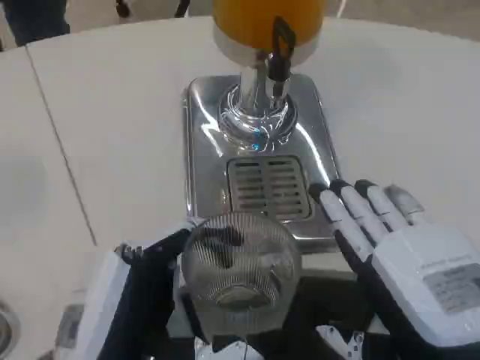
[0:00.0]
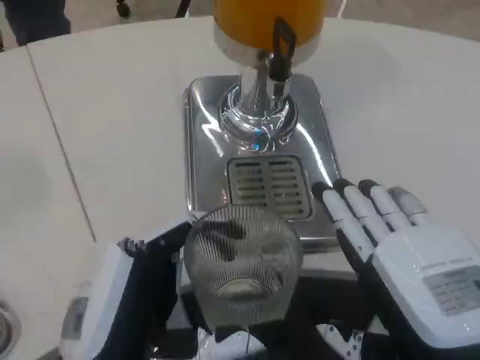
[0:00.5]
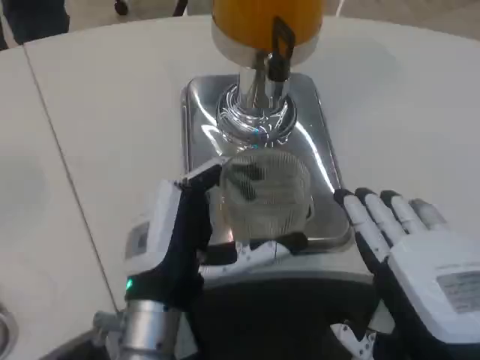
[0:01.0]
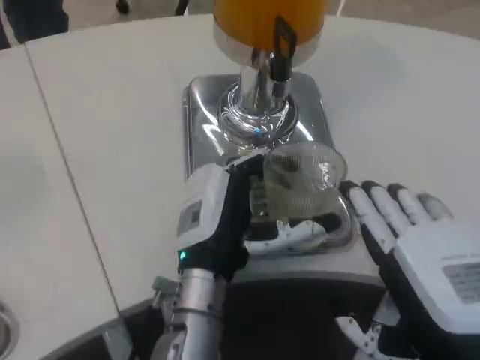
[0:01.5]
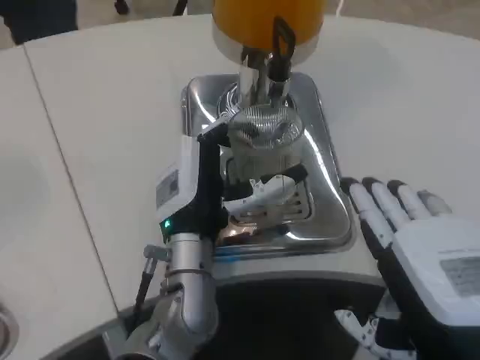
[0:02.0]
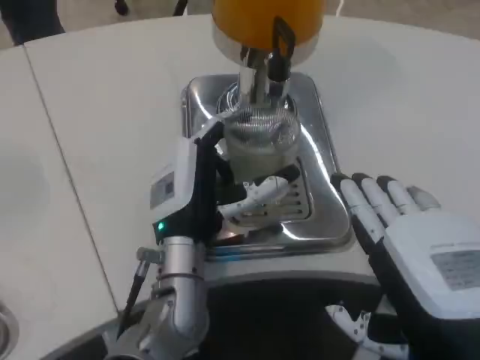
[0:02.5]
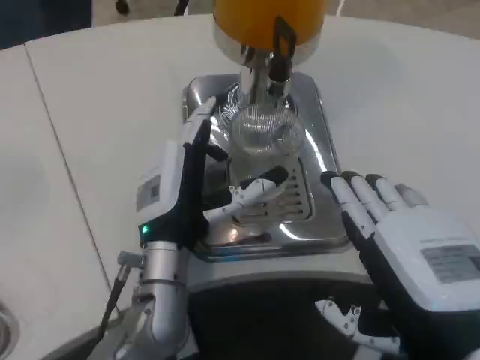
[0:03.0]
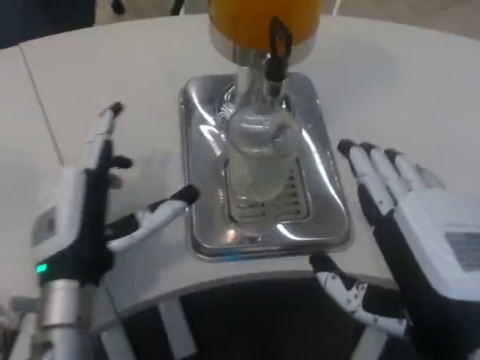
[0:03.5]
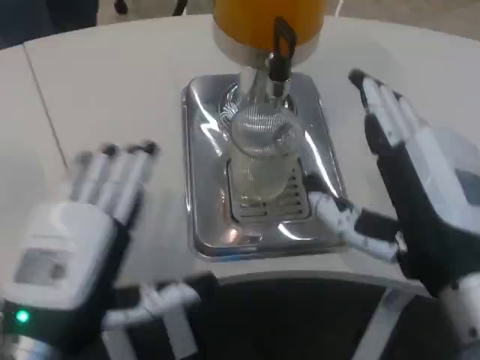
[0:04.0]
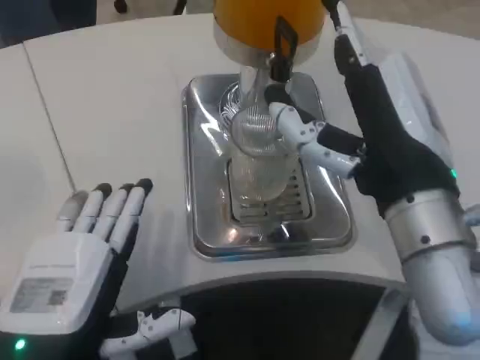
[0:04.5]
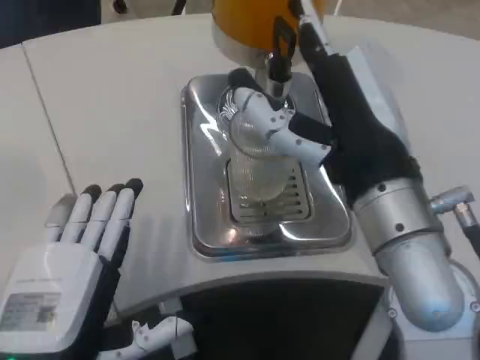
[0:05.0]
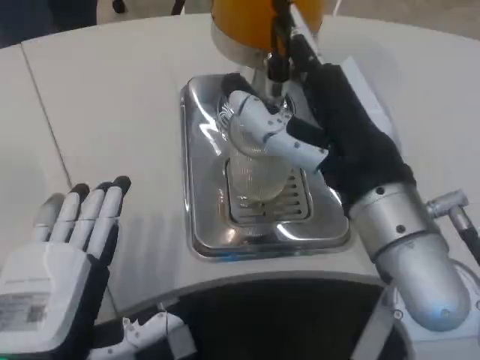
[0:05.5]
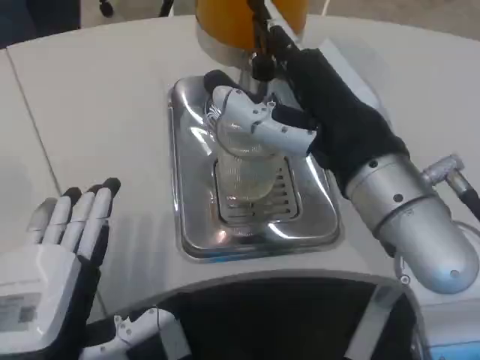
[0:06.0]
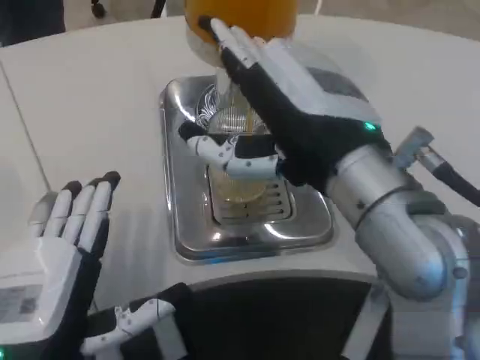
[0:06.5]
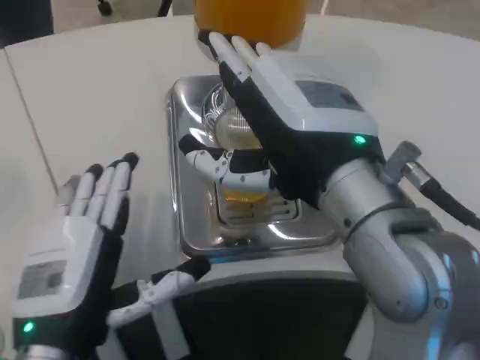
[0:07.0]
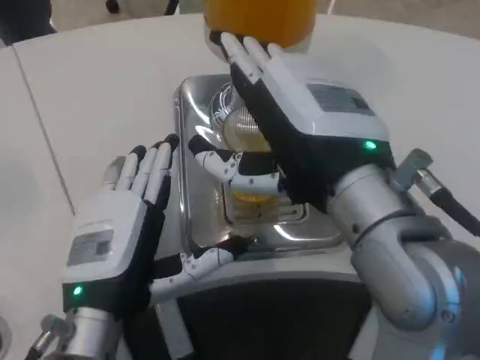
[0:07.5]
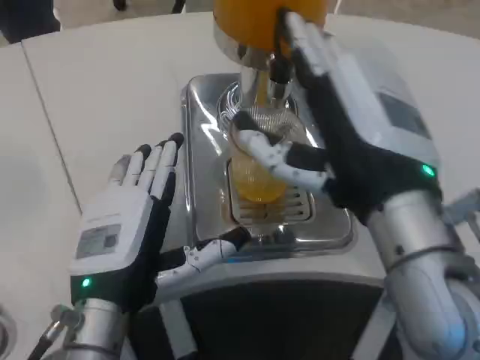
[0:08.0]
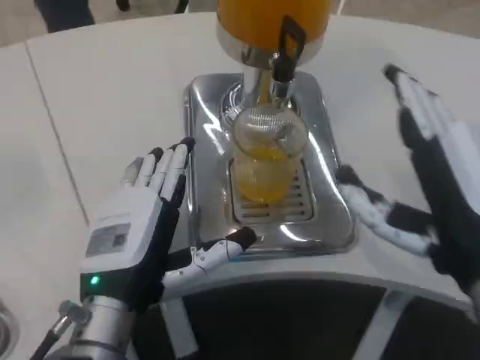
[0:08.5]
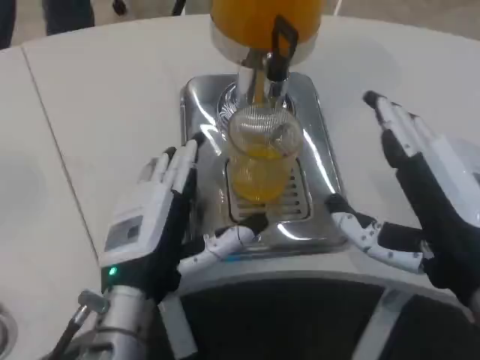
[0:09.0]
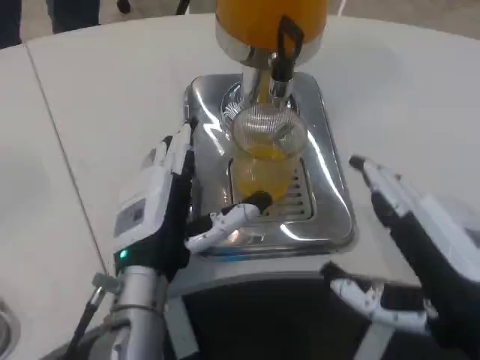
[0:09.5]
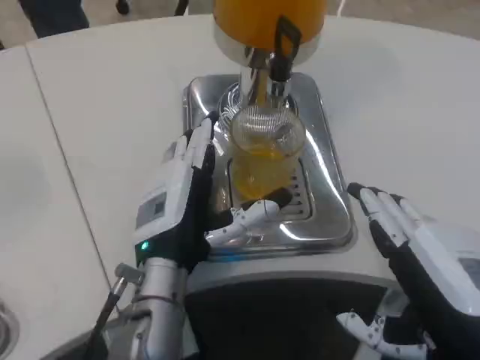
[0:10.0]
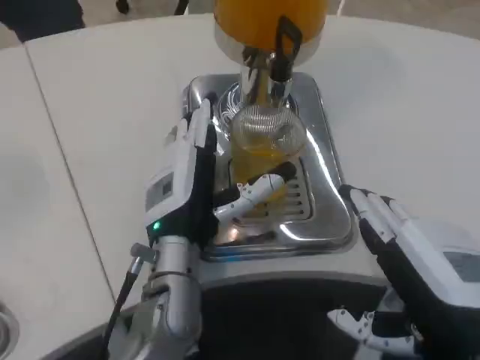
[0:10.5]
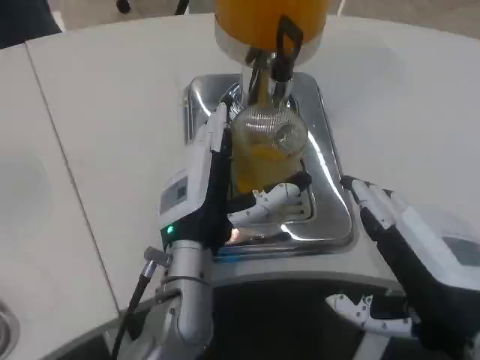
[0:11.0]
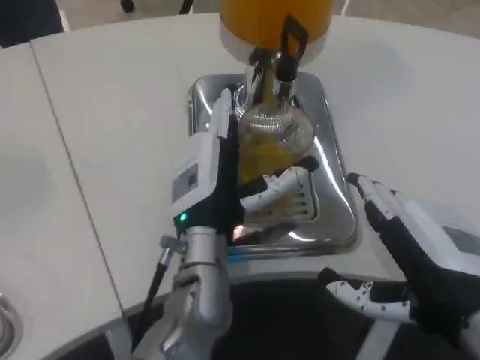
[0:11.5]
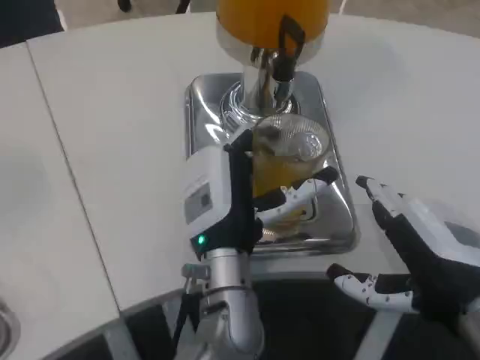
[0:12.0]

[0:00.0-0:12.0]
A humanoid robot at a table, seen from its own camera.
Task of the whole recording: Grasp the cup under the faucet to collect the drink, then remove the cup.
0:00.0 to 0:02.0: The left hand heads forward and to the right, covering approximately 20 cm.
0:02.0 to 0:04.0: The left hand is displaced backward and to the left by approximately 20 cm. The right hand is displaced forward by approximately 5 cm.
0:04.0 to 0:06.0: The right hand is displaced upward by roughly 5 cm.
0:06.0 to 0:08.0: The left hand travels forward by some 10 cm.
0:08.0 to 0:10.0: The right hand shifts about 10 cm to the right, backward and downward, while the left hand is displaced forward and to the right by roughly 5 cm.
0:10.0 to 0:12.0: The left hand moves to the right, some 10 cm.

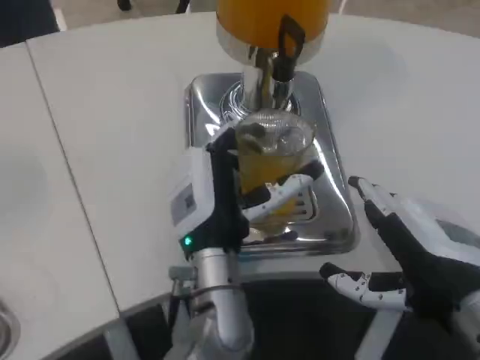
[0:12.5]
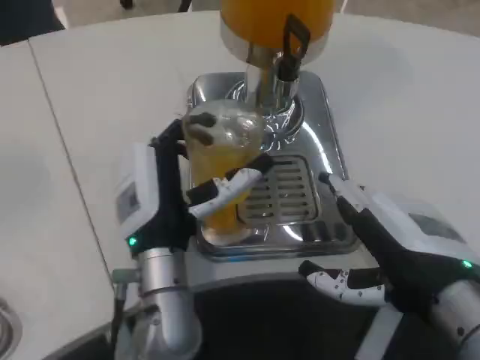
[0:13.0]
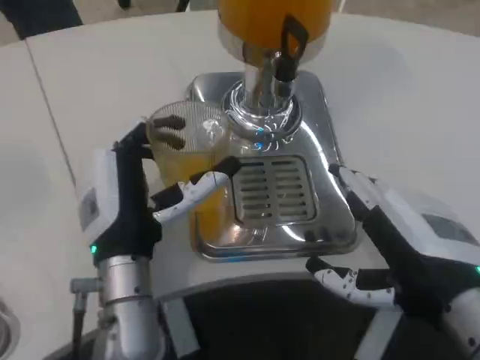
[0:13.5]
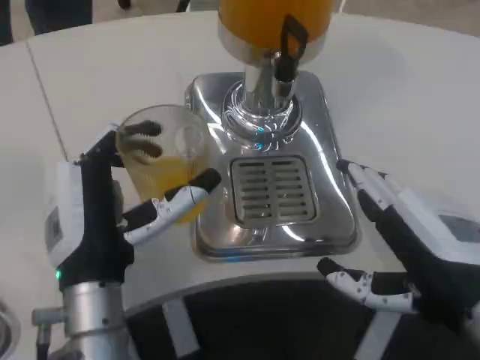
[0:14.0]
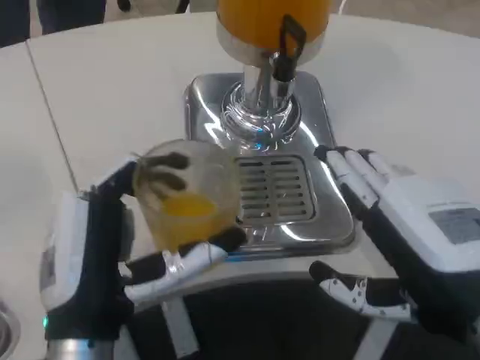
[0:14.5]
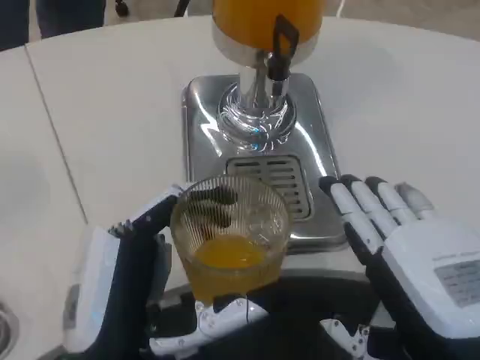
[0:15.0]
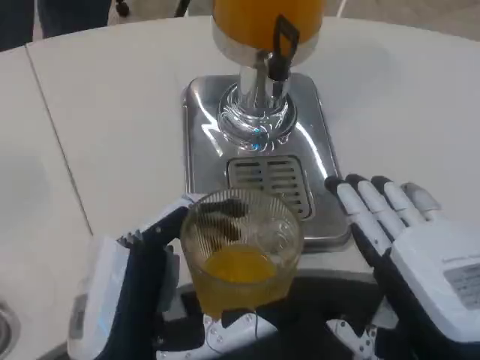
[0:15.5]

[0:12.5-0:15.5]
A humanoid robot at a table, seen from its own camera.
Task of the whole recording: Grasp the cup under the faucet to collect the drink, then remove the cup.
0:12.5 to 0:14.0: The left hand moves to the left and backward, approximately 10 cm.
0:14.0 to 0:15.5: The right hand is displaced backward by some 5 cm. Meanwhile the left hand goes some 10 cm backward.

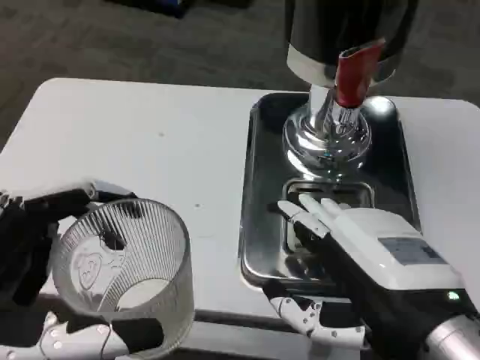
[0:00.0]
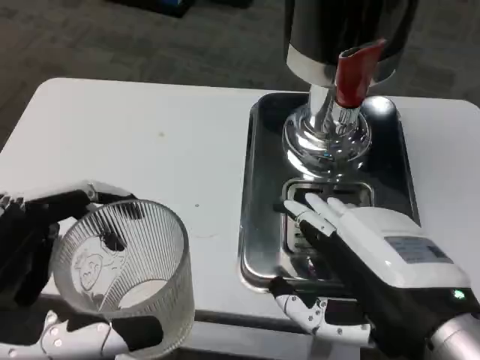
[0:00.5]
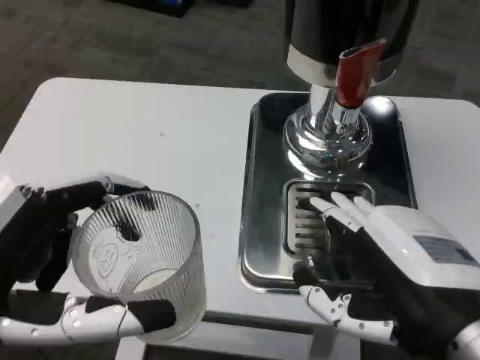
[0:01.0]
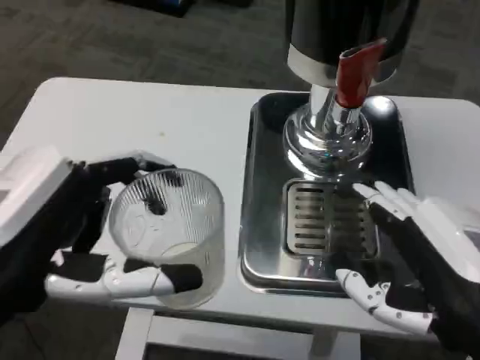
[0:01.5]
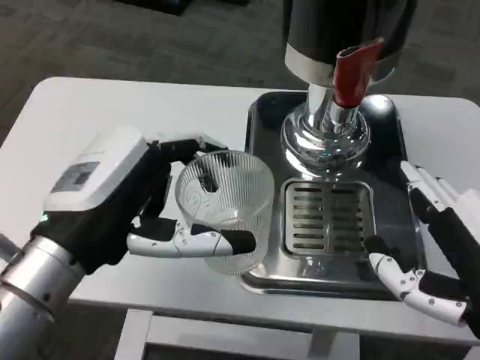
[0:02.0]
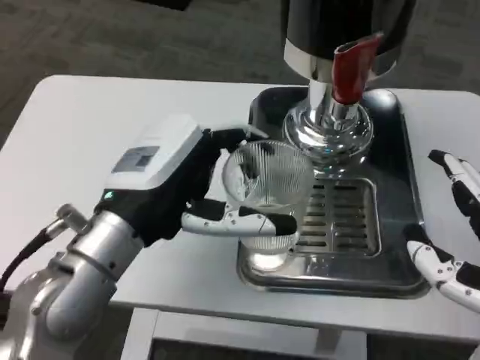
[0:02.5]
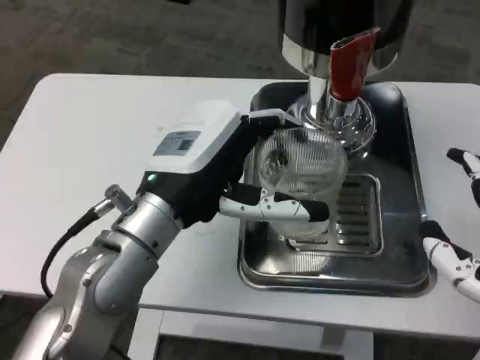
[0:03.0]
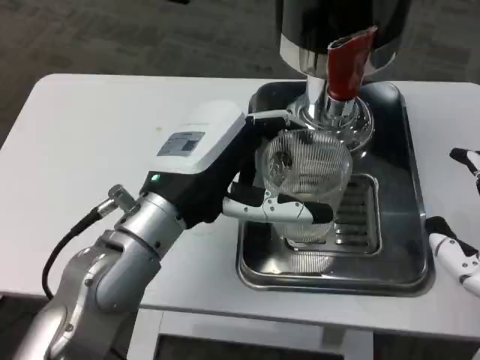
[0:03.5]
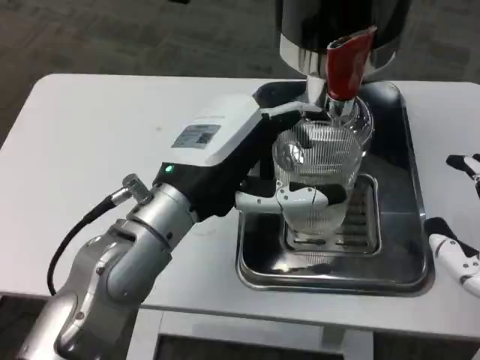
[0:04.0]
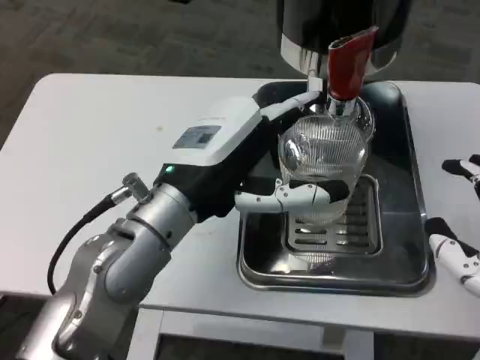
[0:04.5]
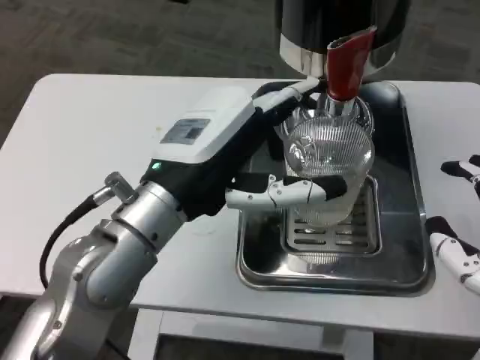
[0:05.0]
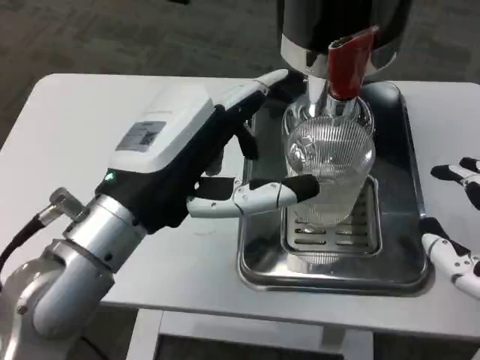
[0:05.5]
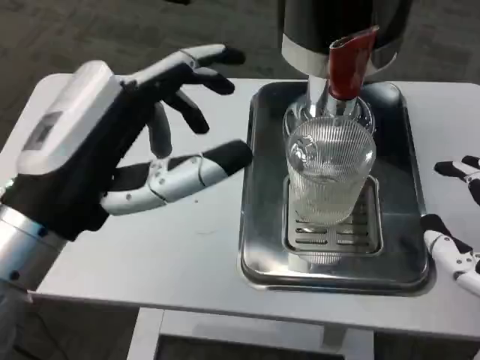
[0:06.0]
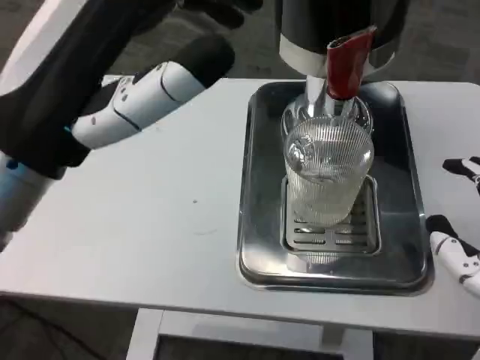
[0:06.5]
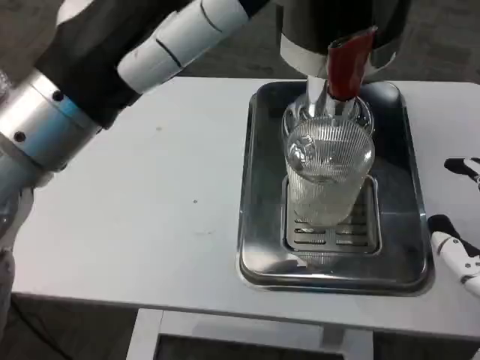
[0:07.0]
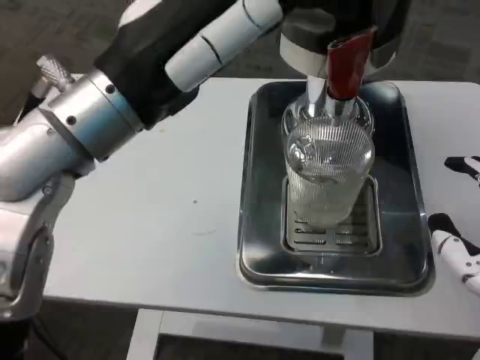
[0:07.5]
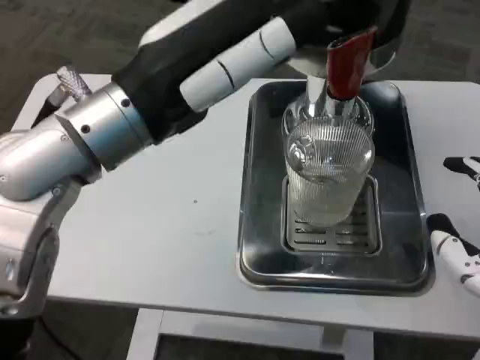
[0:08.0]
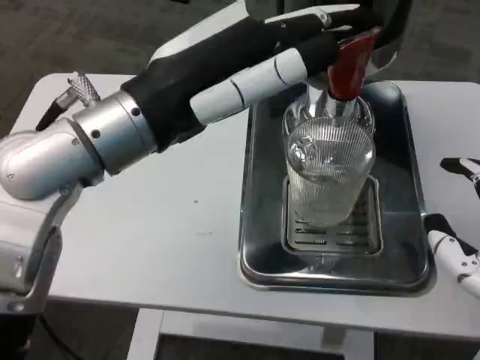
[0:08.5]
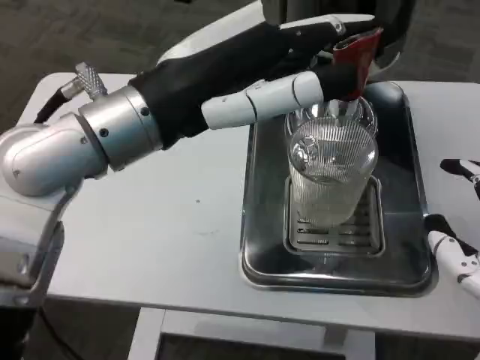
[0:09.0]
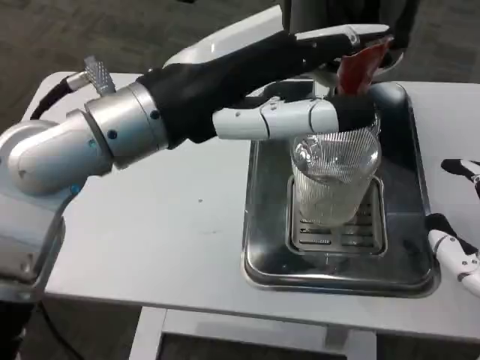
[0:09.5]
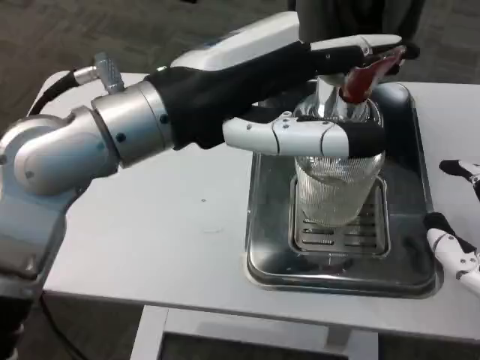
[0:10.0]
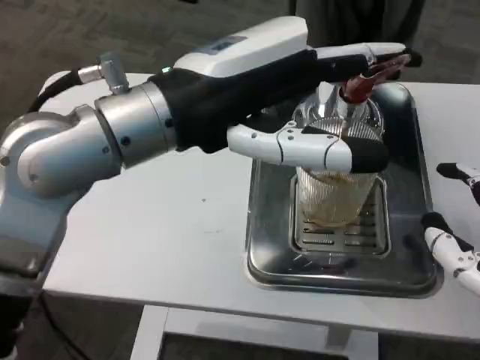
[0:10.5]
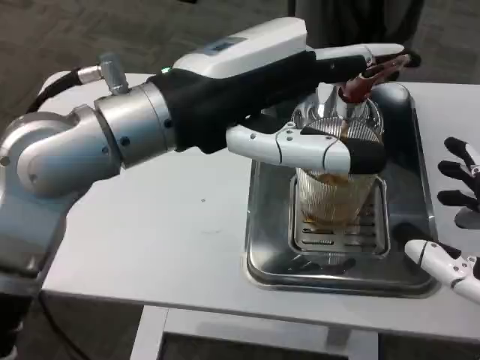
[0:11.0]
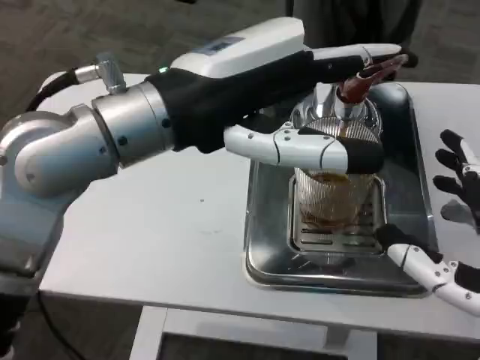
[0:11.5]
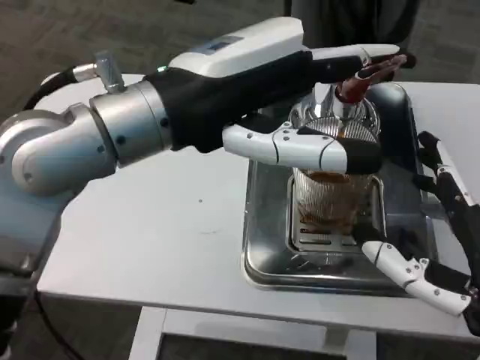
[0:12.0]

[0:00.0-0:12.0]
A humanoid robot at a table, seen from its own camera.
Task of the whole recording: Grasp the cup under the faucet to collect the drink, then remove the cup.
0:00.0 to 0:02.0: The left hand shifts about 15 cm forward and to the right.
0:02.0 to 0:04.0: The left hand moves to the right and forward, about 10 cm.
0:04.0 to 0:06.0: The left hand heads backward and to the left, covering about 10 cm.
0:06.0 to 0:08.0: The left hand shifts approximately 10 cm upward and forward.
0:10.0 to 0:12.0: The right hand shifts by some 5 cm.
